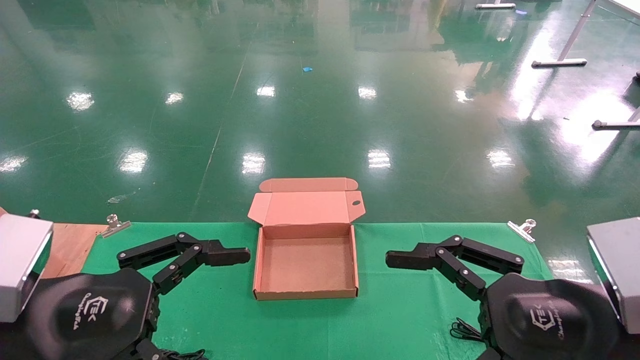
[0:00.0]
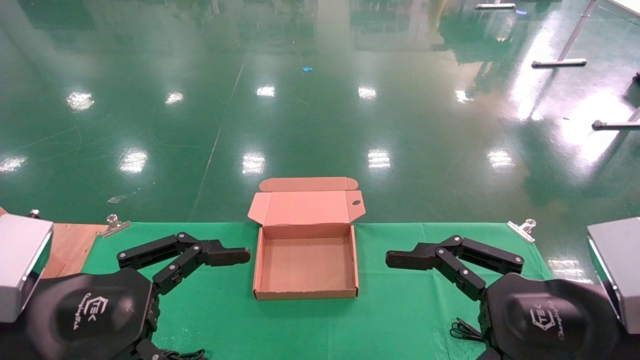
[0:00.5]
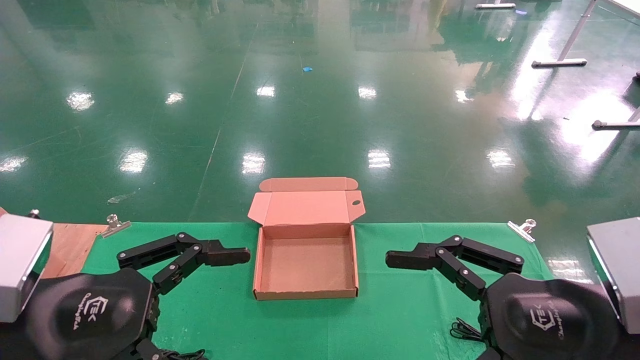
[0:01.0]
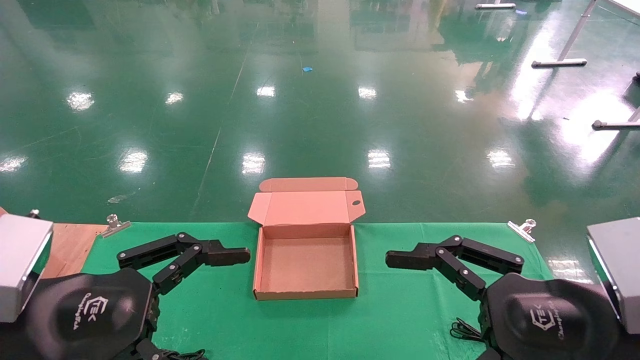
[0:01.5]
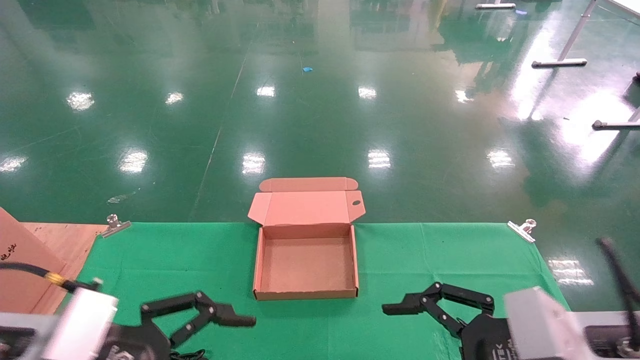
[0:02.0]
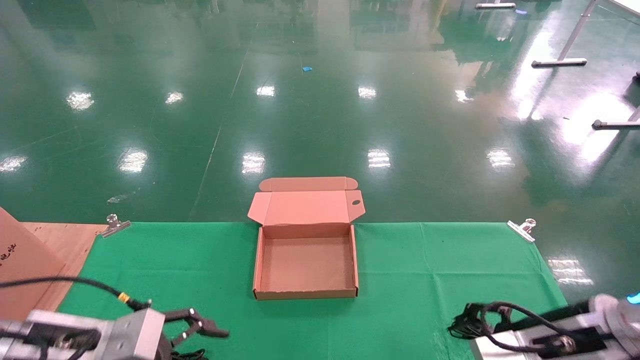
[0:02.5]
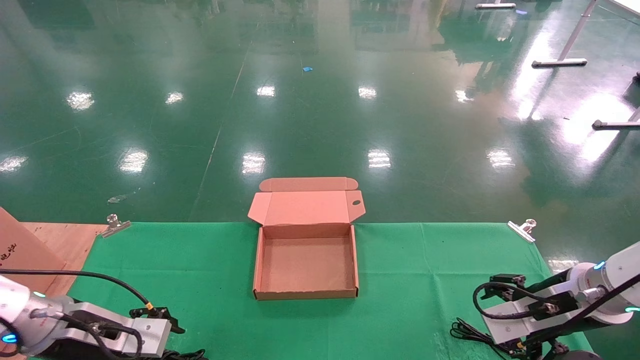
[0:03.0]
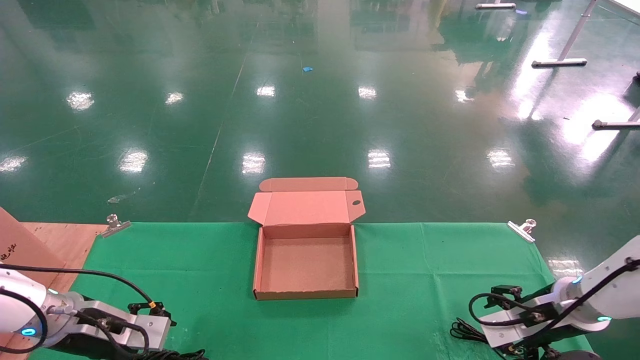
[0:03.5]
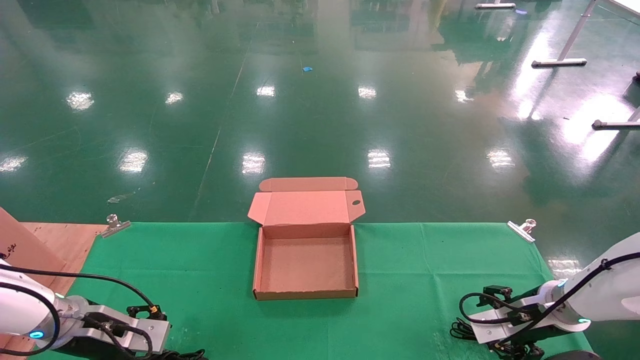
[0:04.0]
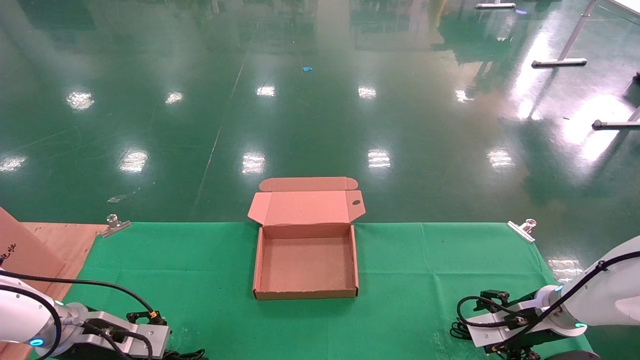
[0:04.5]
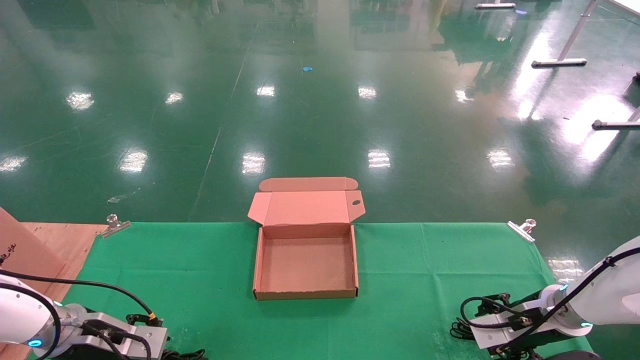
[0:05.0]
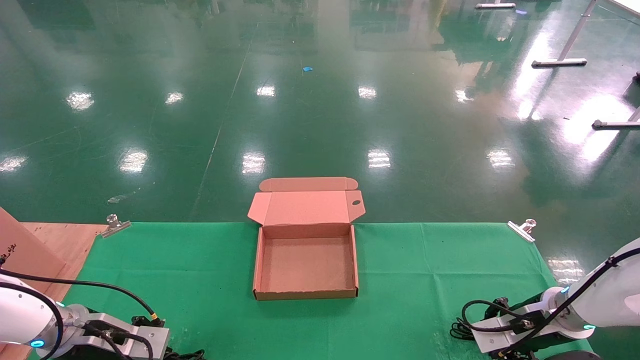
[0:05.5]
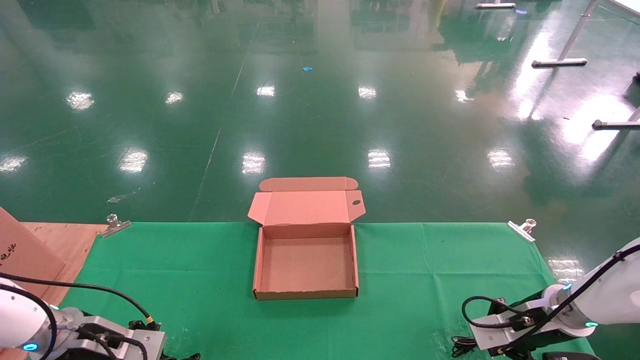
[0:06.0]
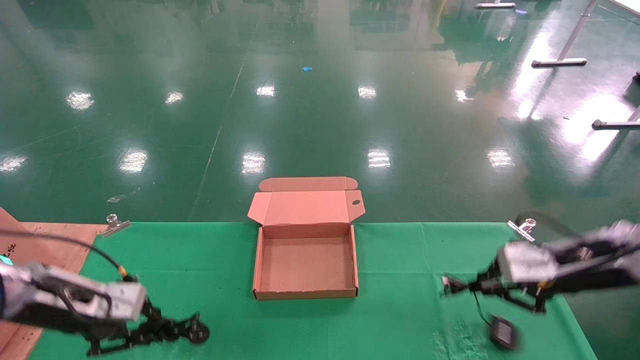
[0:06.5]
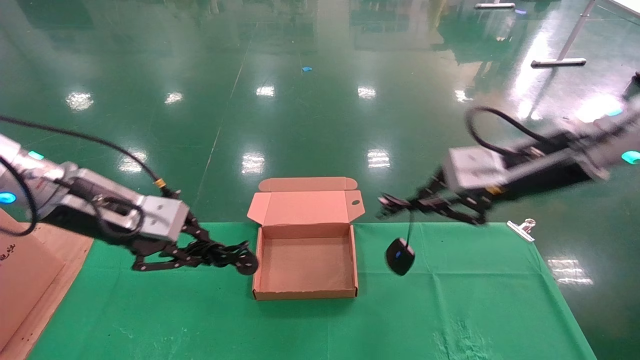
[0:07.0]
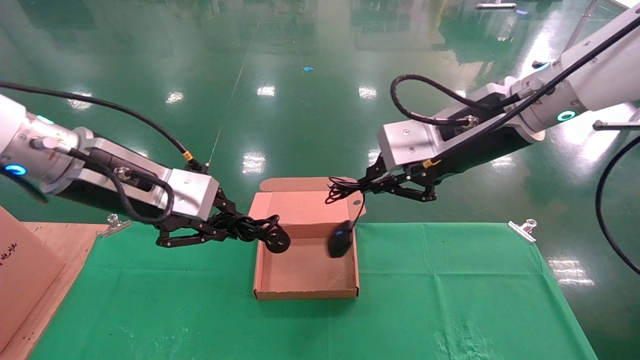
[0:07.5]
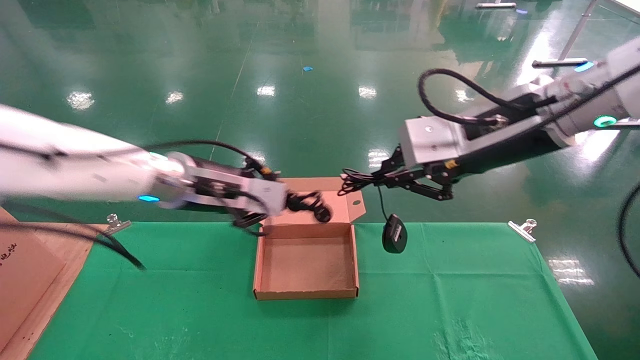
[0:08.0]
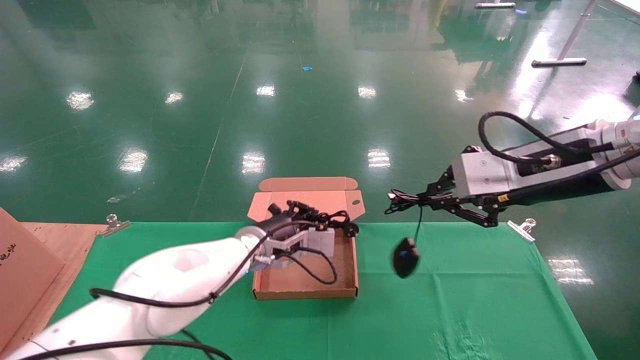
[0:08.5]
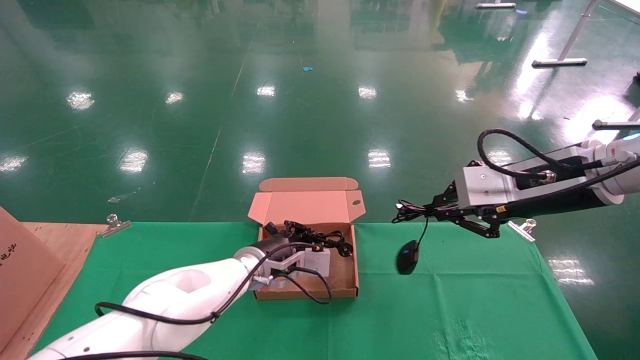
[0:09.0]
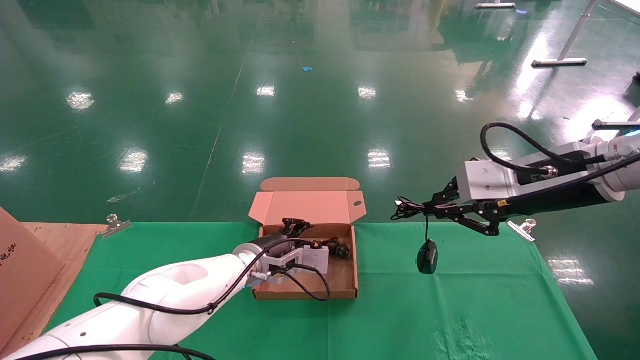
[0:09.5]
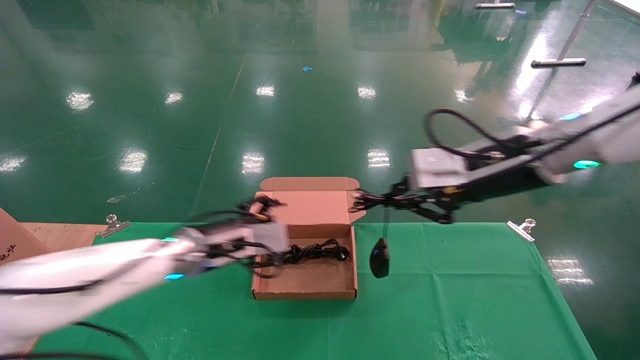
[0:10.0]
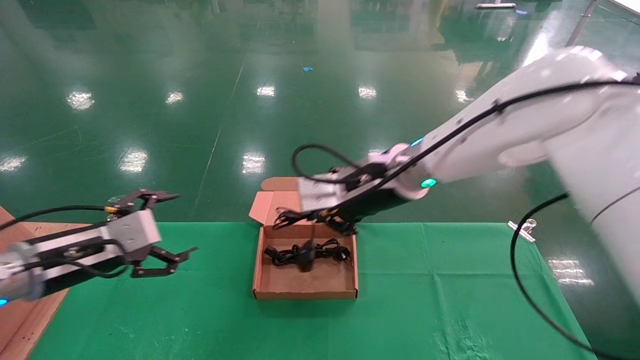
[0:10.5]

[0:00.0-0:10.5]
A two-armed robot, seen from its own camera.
Step, 0:02.5 to 0:05.5: Grab and lift both the mouse and power cord from the accessory packaging area at the same time.
0:00.0 to 0:02.0: The right gripper changes place by approximately 5 cm.
0:02.0 to 0:04.0: The right gripper heads forward and downward, covering approximately 25 cm, while the left gripper shifts roughly 25 cm forward, downward and to the left.
0:04.0 to 0:06.5: The left gripper is displaced upward by roughly 10 cm, and closes. The right gripper shifts approximately 15 cm upward and backward, and closes its fingers.
0:06.5 to 0:08.5: The right gripper is displaced upward and to the left by about 15 cm; the left gripper moves to the right and forward, some 30 cm.
0:08.5 to 0:10.5: The left gripper moves to the left and backward, about 25 cm, and opens up; the right gripper travels to the left and forward by about 20 cm.

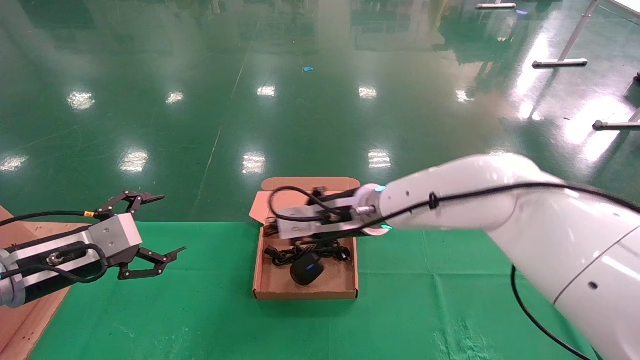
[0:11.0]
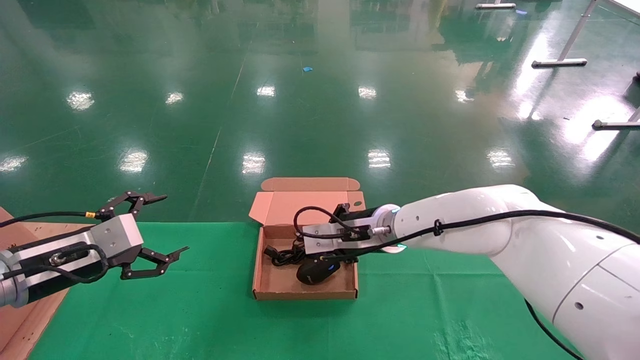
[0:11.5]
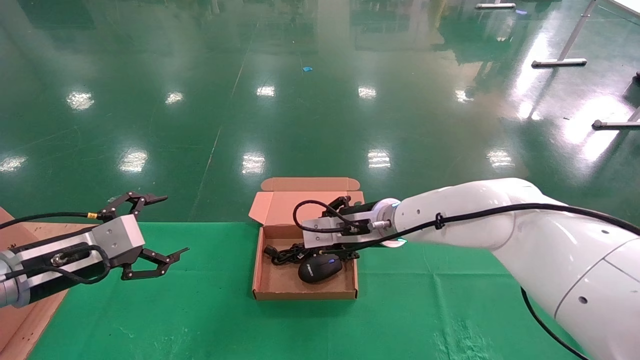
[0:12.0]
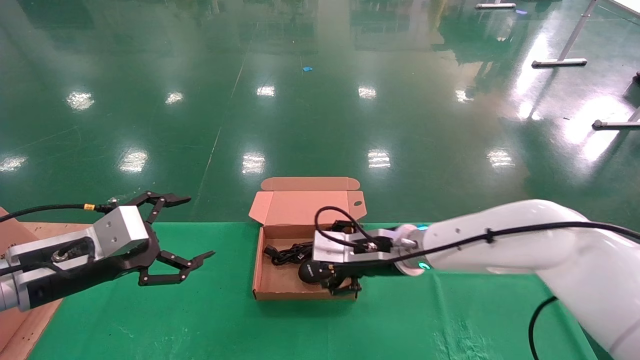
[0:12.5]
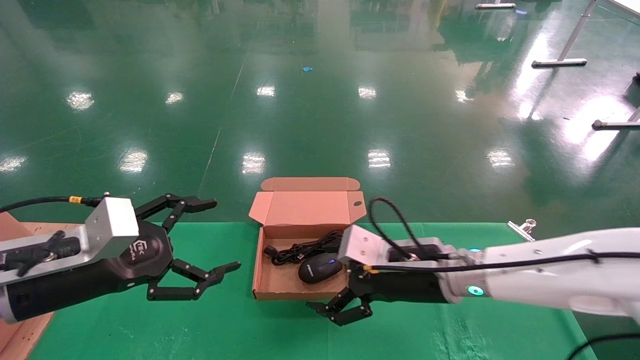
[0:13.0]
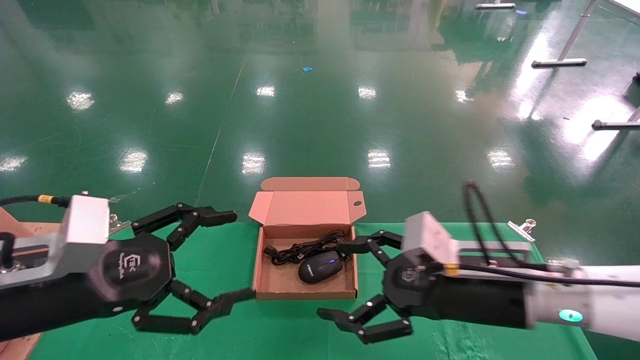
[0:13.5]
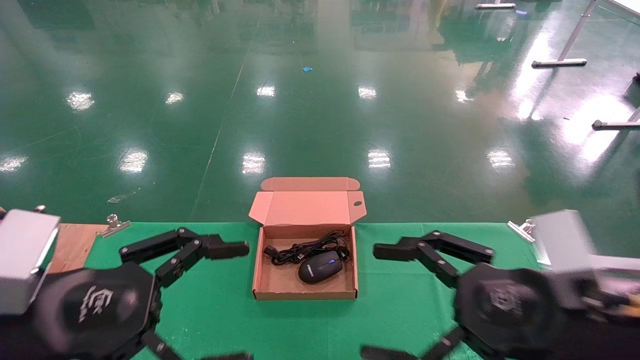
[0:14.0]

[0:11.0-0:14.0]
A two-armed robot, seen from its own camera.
0:11.0 to 0:12.5: The right gripper is displaced downward by about 5 cm, and opens.
0:12.5 to 0:14.0: The left gripper moves backward and to the right, about 15 cm, while the right gripper travels backward and to the right by some 25 cm.

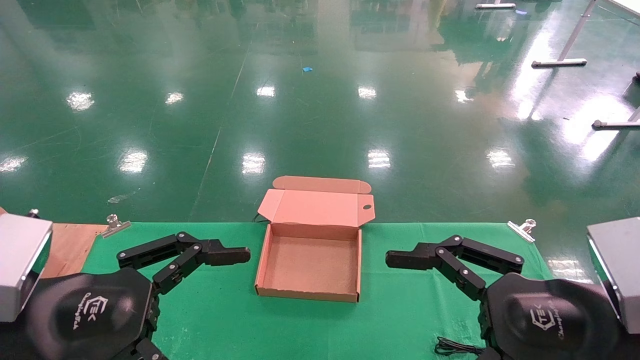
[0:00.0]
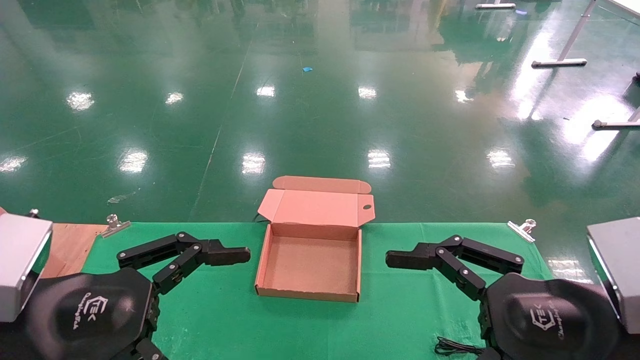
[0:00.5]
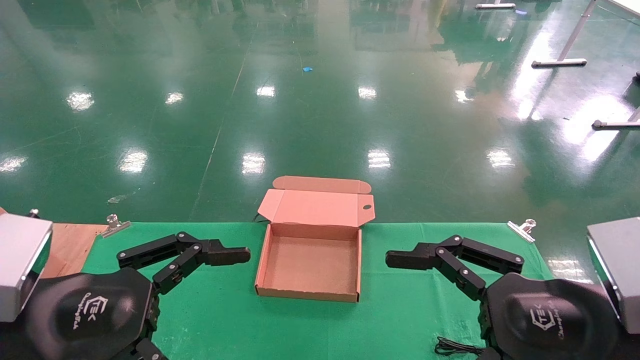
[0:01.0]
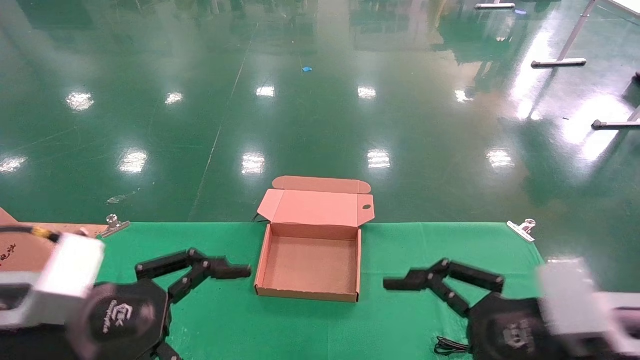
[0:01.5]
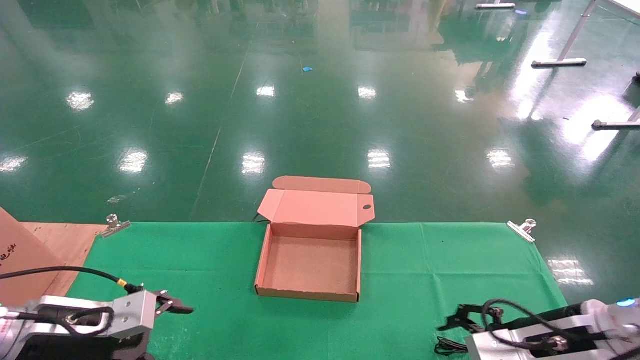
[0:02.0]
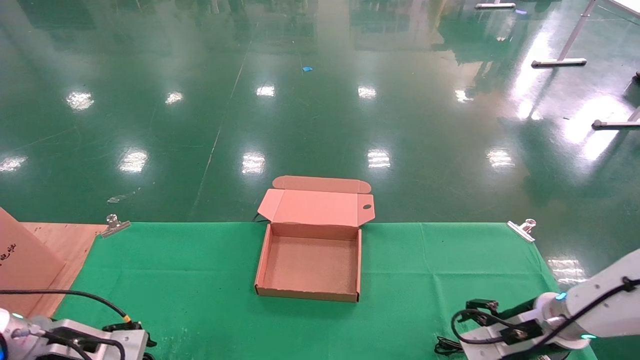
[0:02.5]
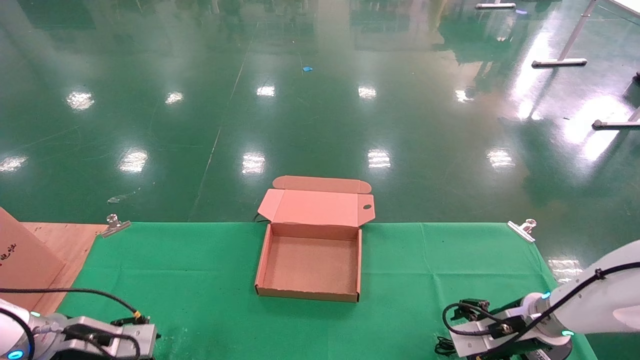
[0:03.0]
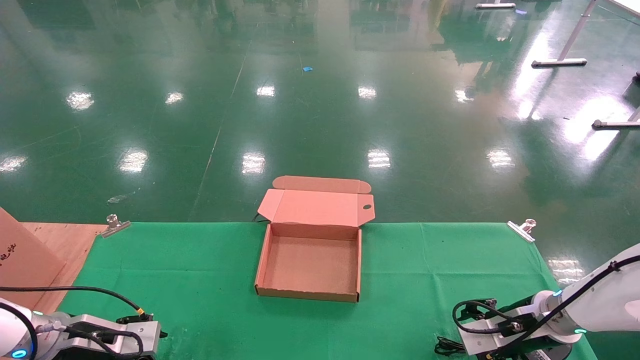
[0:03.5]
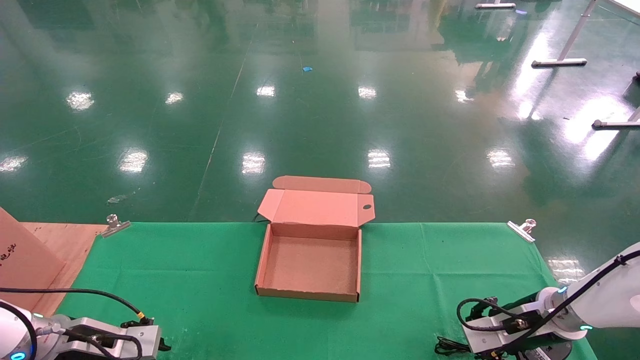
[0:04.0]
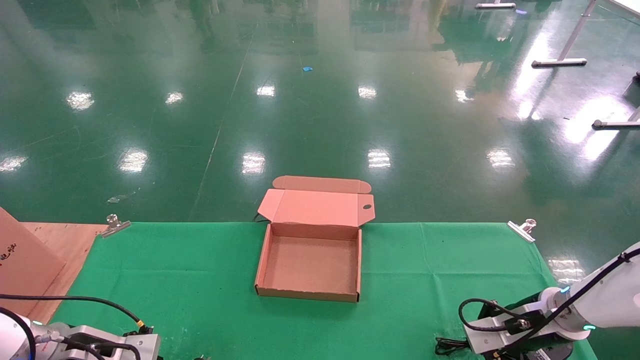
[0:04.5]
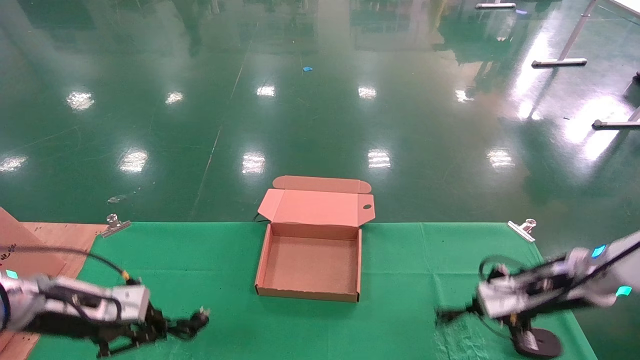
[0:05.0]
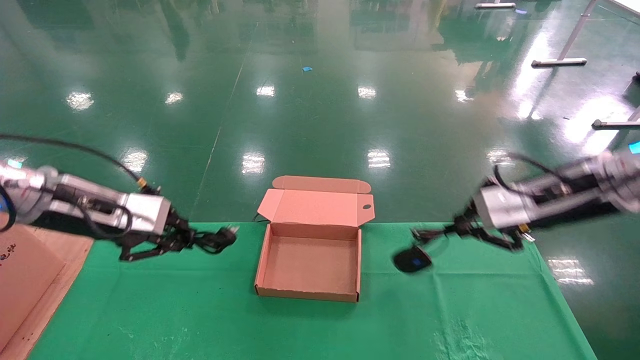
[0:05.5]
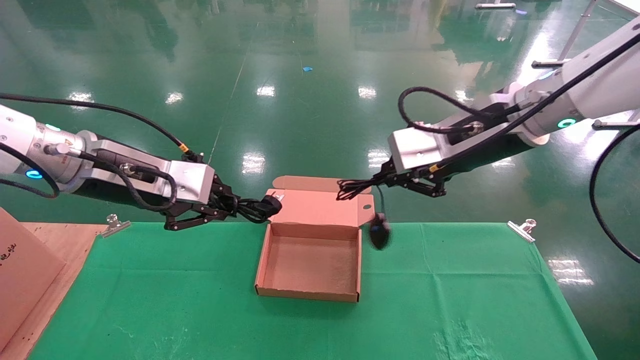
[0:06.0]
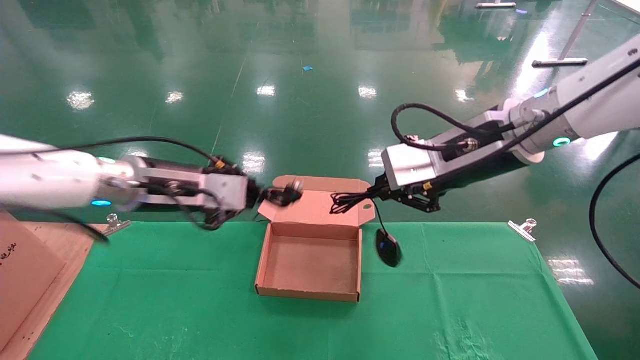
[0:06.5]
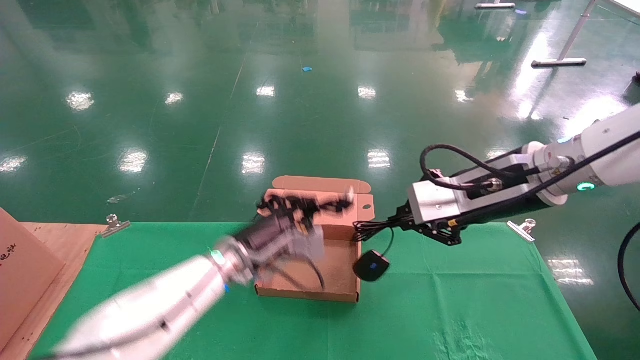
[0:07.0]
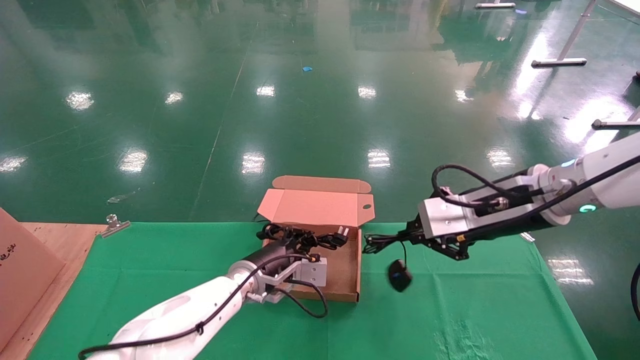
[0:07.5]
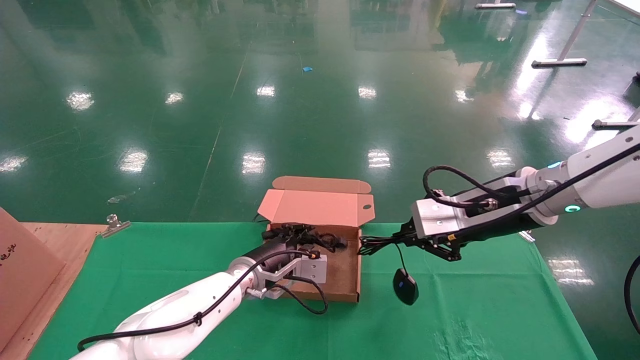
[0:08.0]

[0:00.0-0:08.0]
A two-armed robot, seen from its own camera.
Step, 0:02.0 to 0:05.5: Grab and lift both the mouse and power cord from the accessory packaging area at the same time.
0:00.0 to 0:02.0: The right gripper travels forward and downward by approximately 15 cm; the left gripper goes about 20 cm forward, downward and to the left.
0:02.0 to 0:04.0: The left gripper is displaced downward and forward by approximately 10 cm, and closes up; the right gripper is displaced forward and downward by approximately 10 cm, and closes.
0:04.0 to 0:06.0: The left gripper moves upward and to the right, roughly 30 cm, and closes. The right gripper travels upward and to the left by roughly 30 cm, and closes.
0:06.0 to 0:08.0: The right gripper moves downward, some 10 cm. The left gripper travels downward, to the right and forward by about 30 cm.
